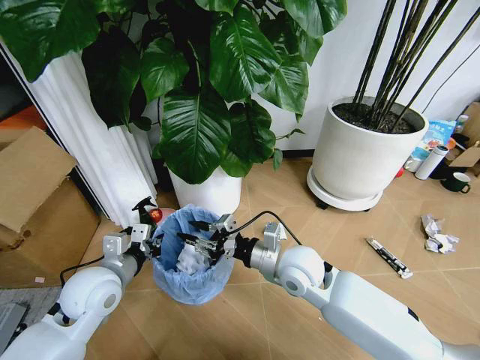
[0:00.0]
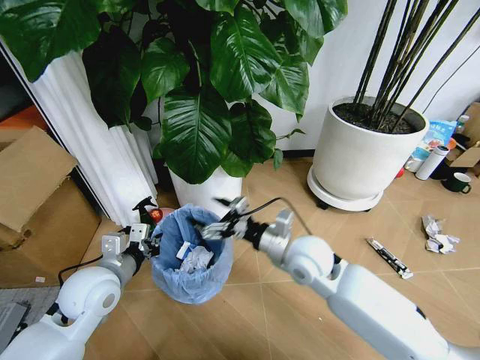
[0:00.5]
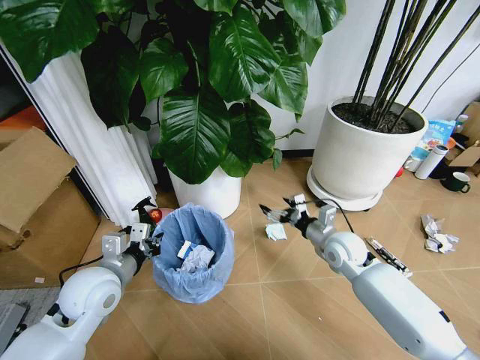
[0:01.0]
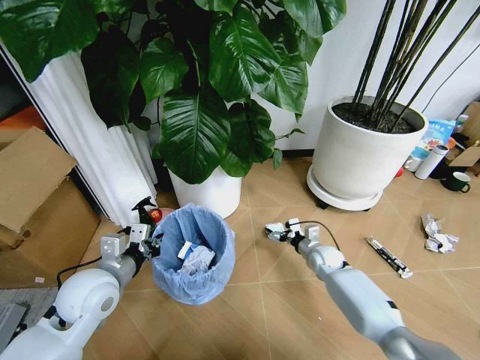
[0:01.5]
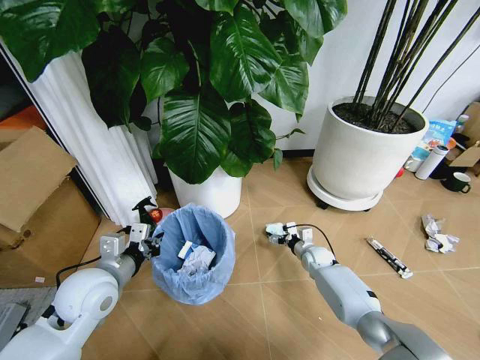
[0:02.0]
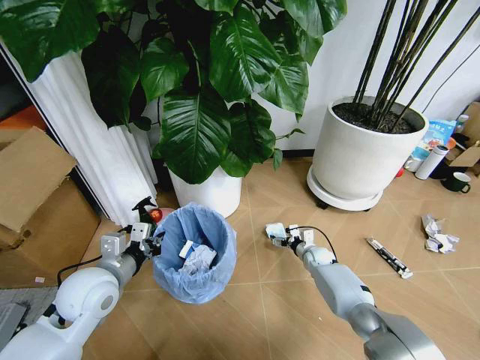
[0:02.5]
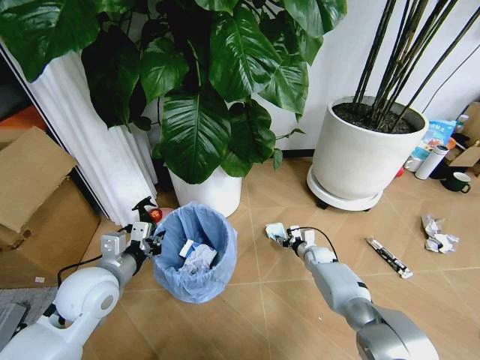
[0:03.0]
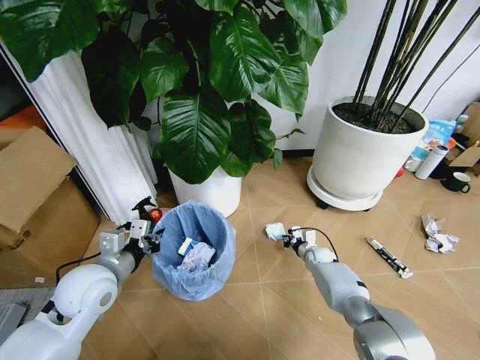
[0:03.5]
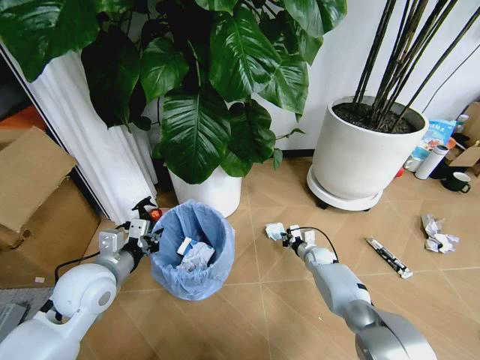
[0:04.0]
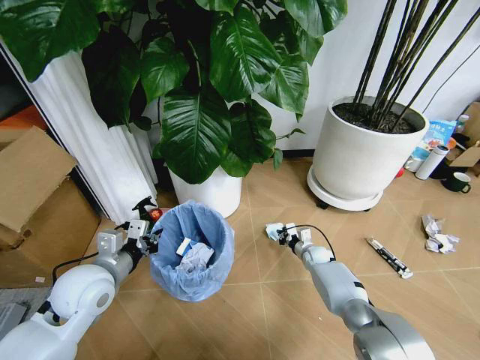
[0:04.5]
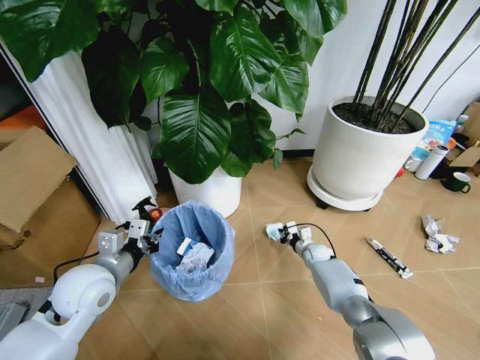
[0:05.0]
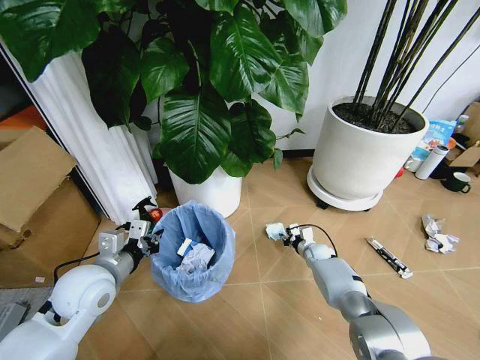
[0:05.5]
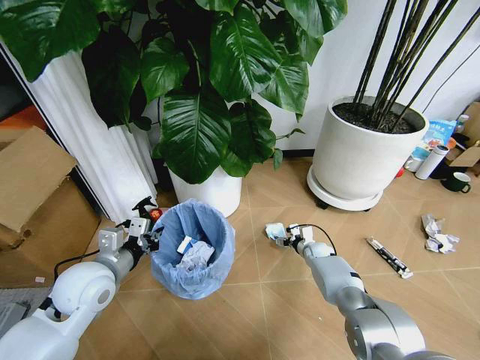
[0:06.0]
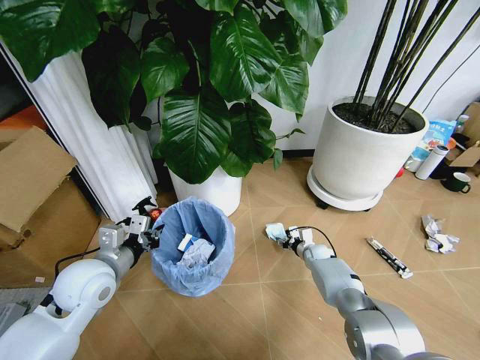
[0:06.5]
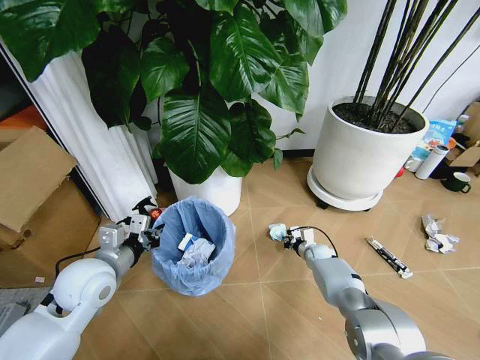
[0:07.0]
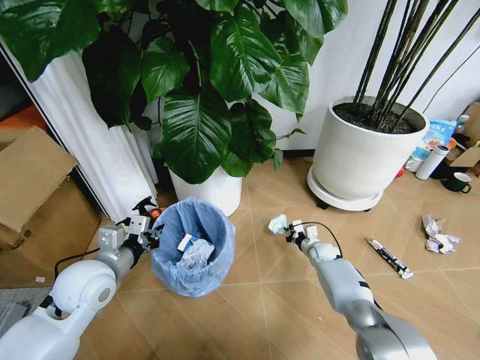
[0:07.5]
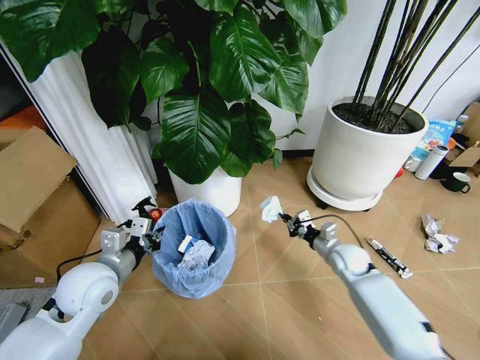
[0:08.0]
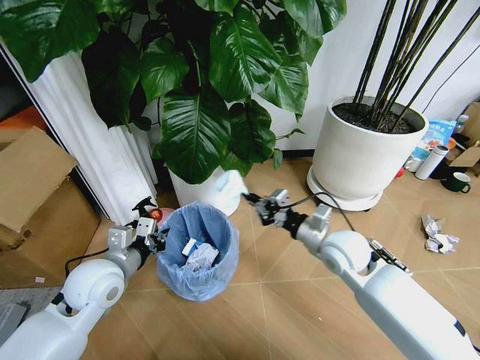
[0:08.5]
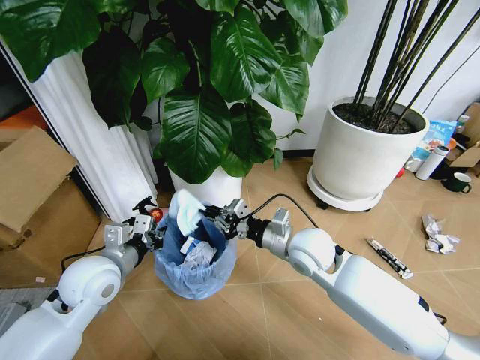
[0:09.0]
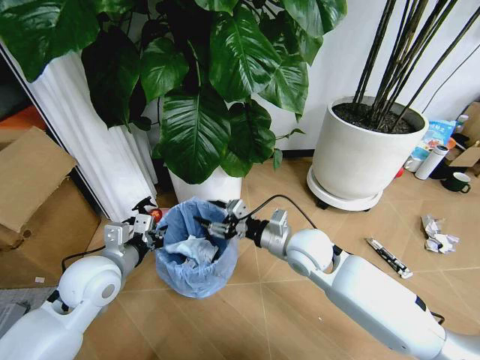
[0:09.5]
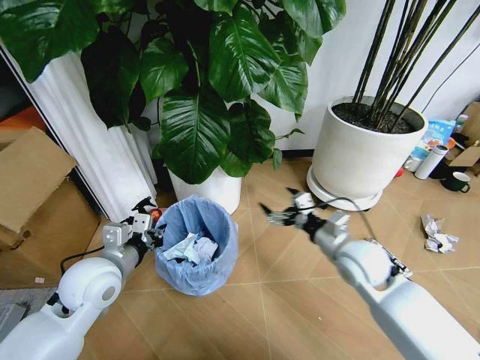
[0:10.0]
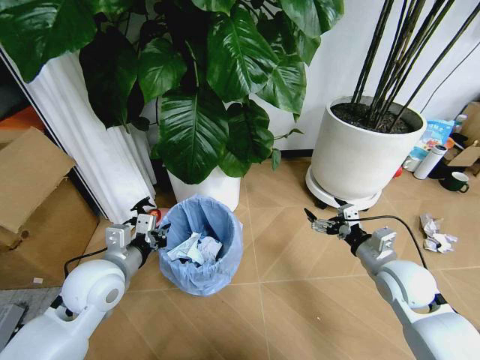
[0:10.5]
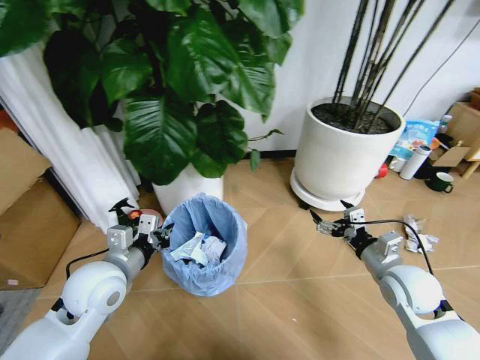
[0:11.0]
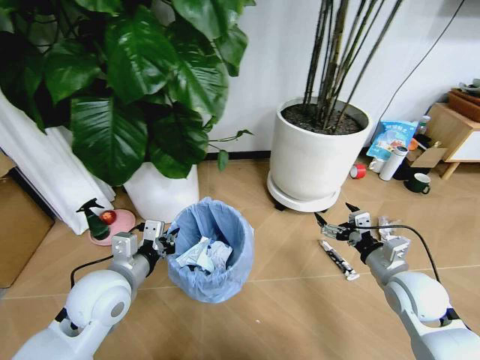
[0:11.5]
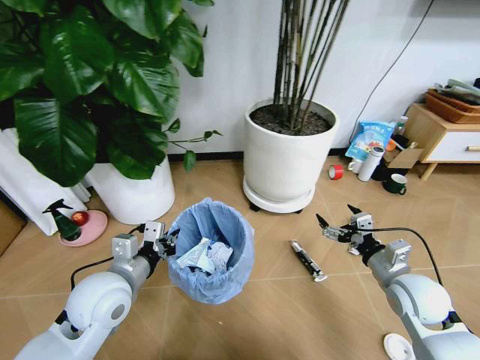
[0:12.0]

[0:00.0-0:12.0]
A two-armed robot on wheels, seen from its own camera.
Task of the whole recording: Pick up the trash bin and place the garbage on the floor into it.
0:00.0 to 0:02.0: The right gripper is displaced downward, to the right and forward by approximately 30 cm, and opens up.
0:02.0 to 0:04.0: The right gripper closes its fingers.
0:04.0 to 0:06.0: The right gripper opens its fingers.
0:06.0 to 0:08.0: The right gripper goes some 15 cm upward and backward, and closes up.
0:08.0 to 0:10.0: The right gripper goes roughly 15 cm upward and backward, reaches some 15 cm to the left, then returns, and opens up.
0:10.0 to 0:12.0: The right gripper goes approximately 10 cm to the right and backward.

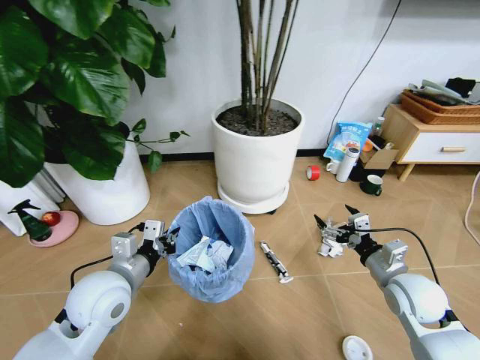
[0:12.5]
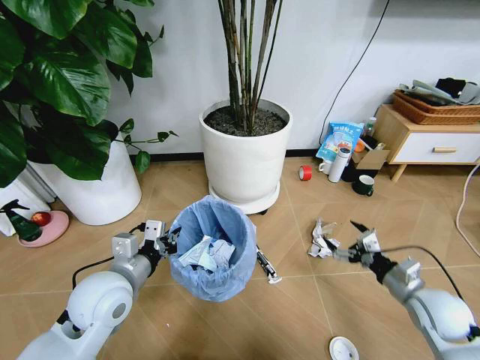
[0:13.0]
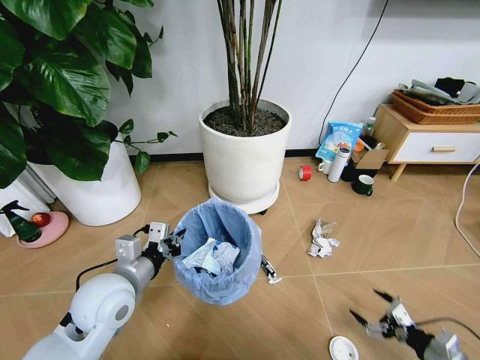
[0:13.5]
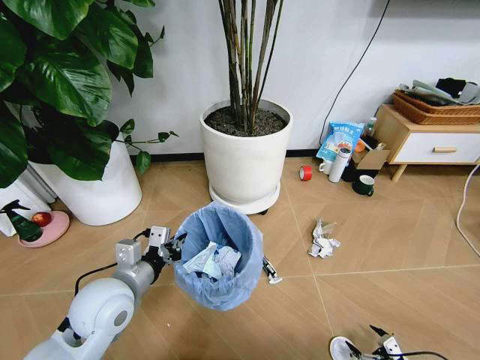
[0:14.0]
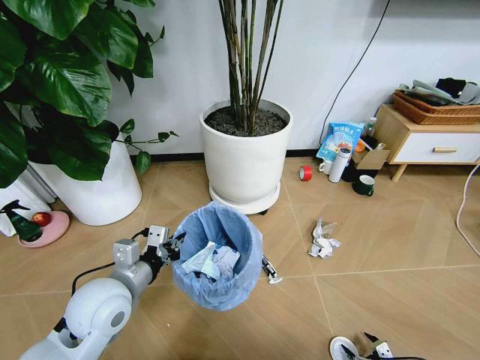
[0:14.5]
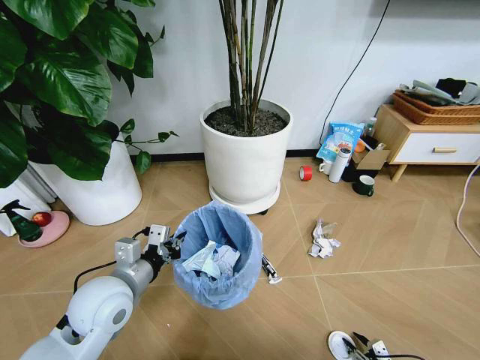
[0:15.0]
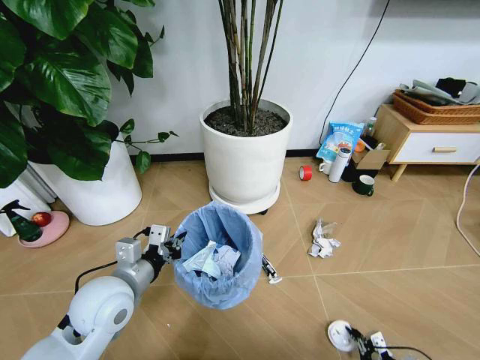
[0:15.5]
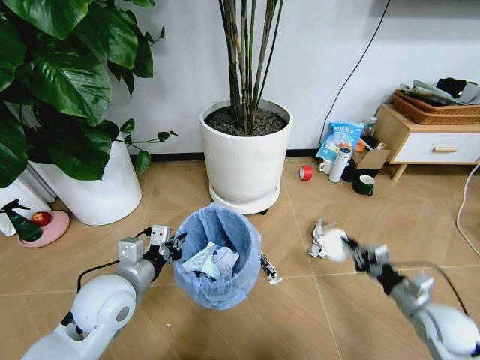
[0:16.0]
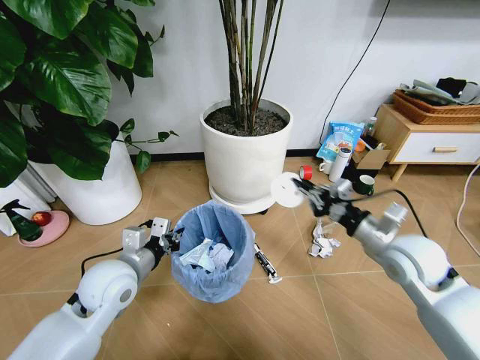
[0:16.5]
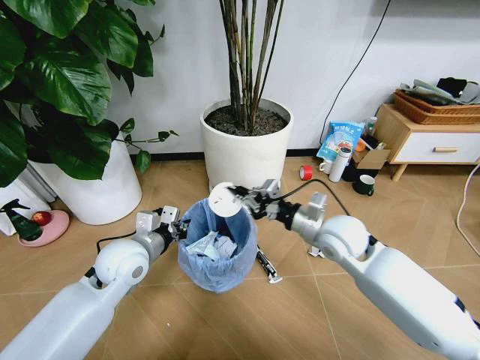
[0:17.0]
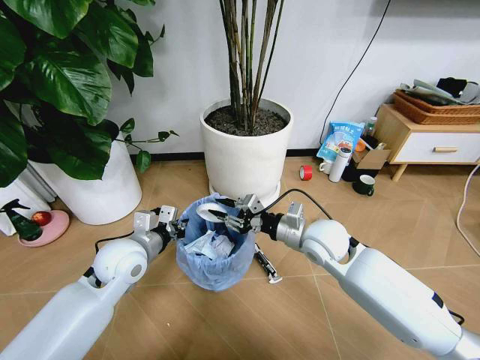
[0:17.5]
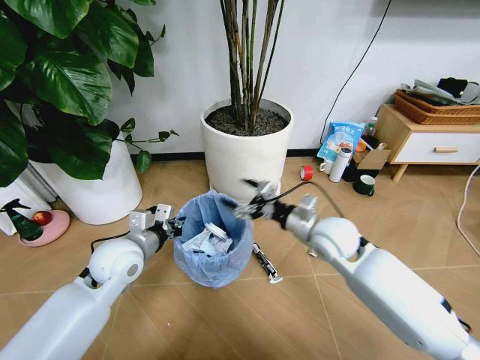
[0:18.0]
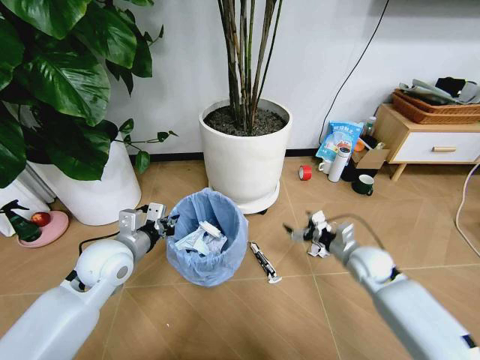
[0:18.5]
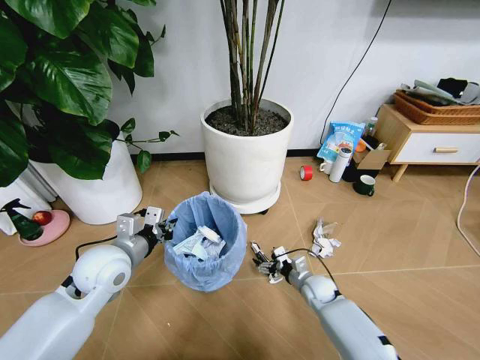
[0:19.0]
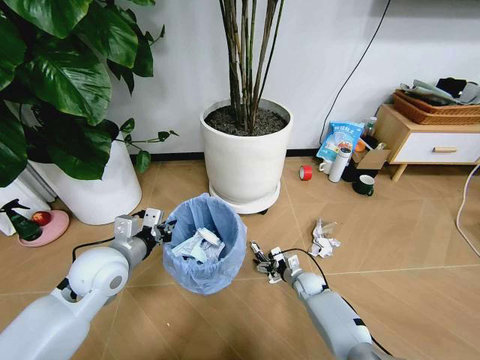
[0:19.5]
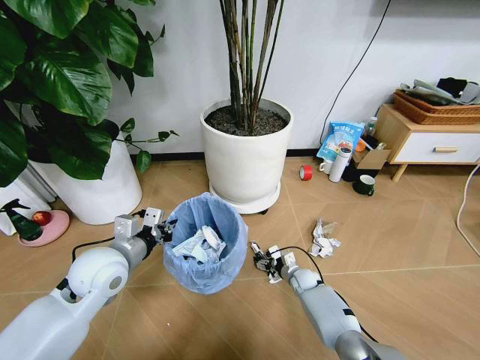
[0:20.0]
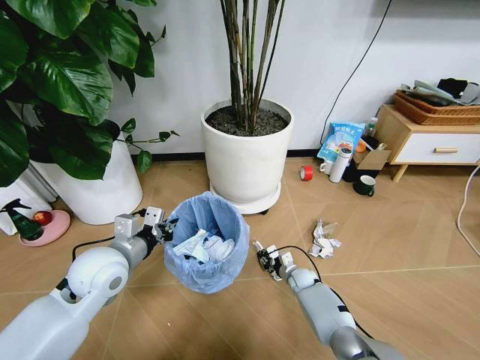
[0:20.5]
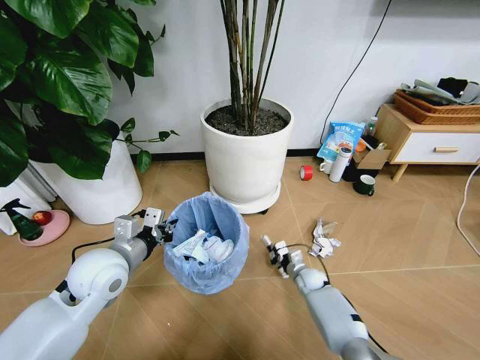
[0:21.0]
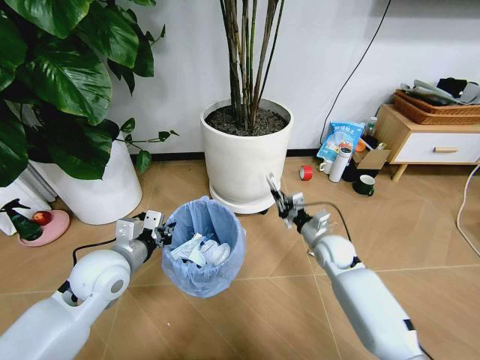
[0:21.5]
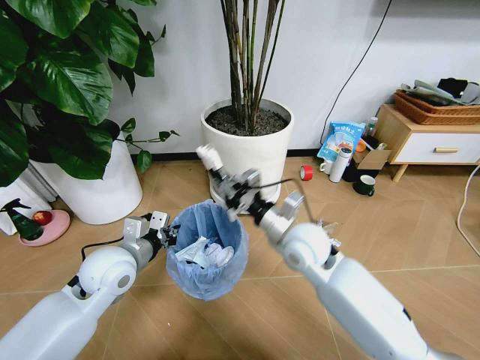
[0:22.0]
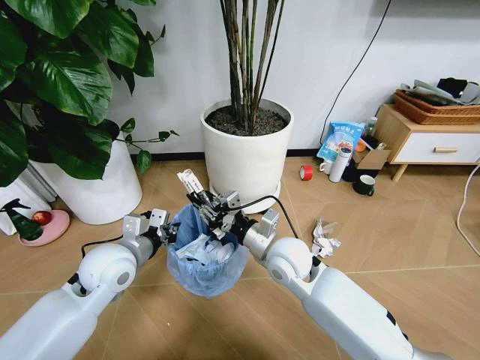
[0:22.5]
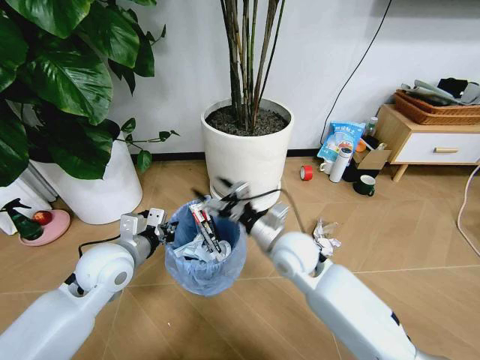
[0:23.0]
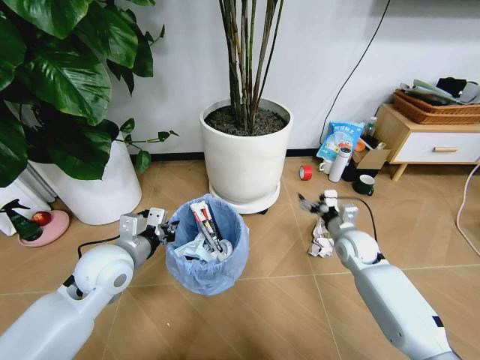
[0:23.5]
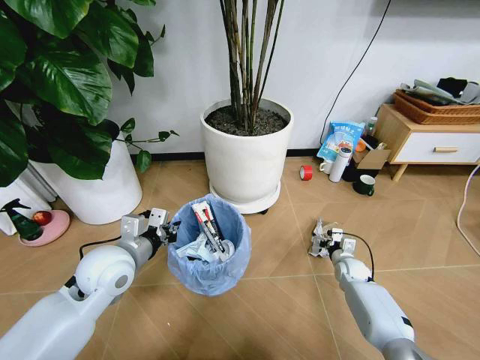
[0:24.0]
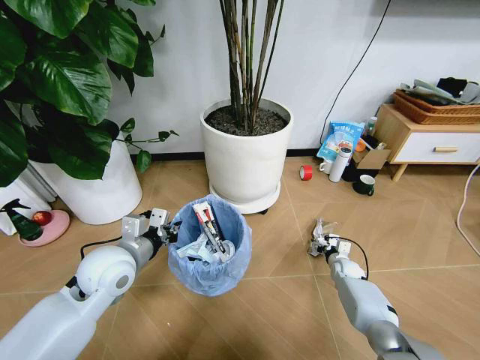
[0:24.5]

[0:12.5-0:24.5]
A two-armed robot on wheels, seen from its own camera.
Task of the whole recording: Pick up the trash bin and place the garbage on the floor into it.
0:12.5 to 0:14.5: The right gripper is displaced downward, backward and to the right by approximately 35 cm.
0:14.5 to 0:16.5: The right gripper moves upward, forward and to the left, approximately 40 cm, and closes its fingers.
0:16.5 to 0:18.5: The right gripper moves downward and forward, approximately 15 cm, travels to the left and back again, roughly 15 cm each way, and opens.
0:18.5 to 0:20.5: The right gripper is displaced downward and to the left by some 25 cm, and closes up.
0:20.5 to 0:22.5: The right gripper moves upward, roughly 30 cm.
0:22.5 to 0:24.5: The right gripper moves downward and to the right, about 40 cm, and opens up.

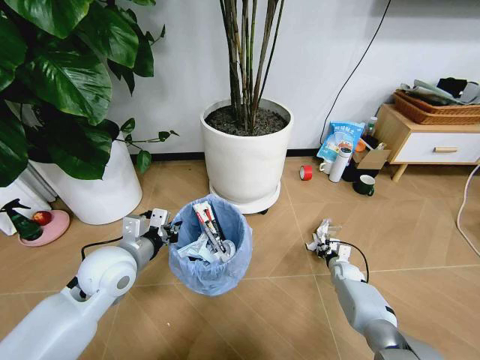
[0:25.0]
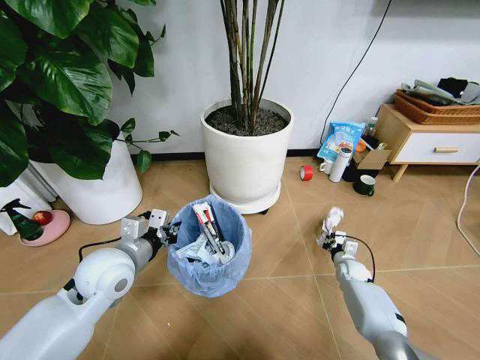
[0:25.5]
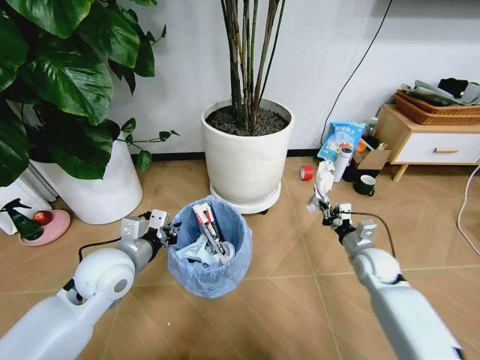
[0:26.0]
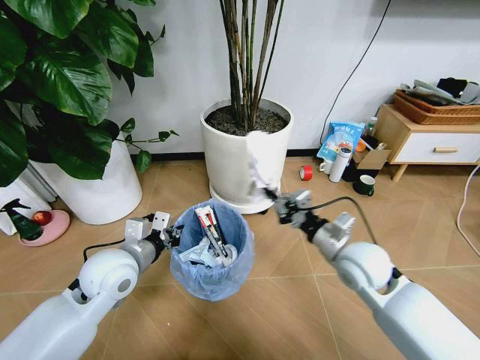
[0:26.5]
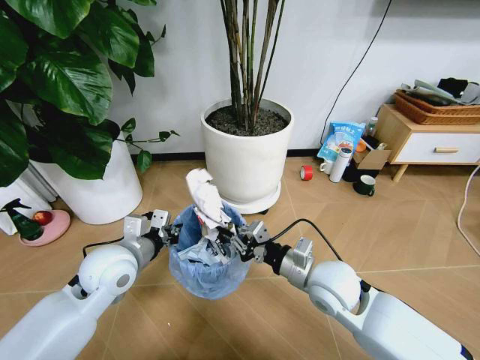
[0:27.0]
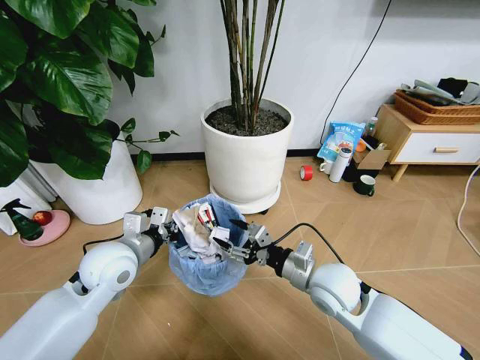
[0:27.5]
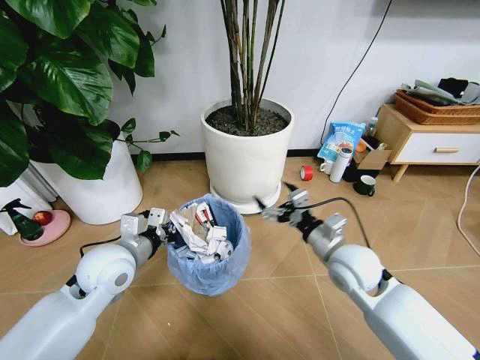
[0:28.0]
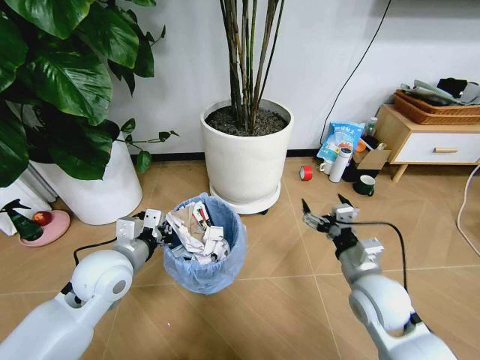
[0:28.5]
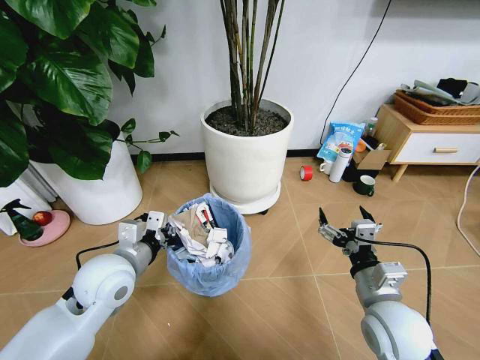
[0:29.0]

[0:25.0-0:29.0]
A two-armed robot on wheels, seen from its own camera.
Task of the whole recording: Pick up the trash bin and place the garbage on the floor into it.
0:25.0 to 0:27.0: The right gripper heads upward, to the left and backward, covering approximately 35 cm.
0:27.0 to 0:29.0: The right gripper is displaced to the right and backward by roughly 10 cm, and opens.
